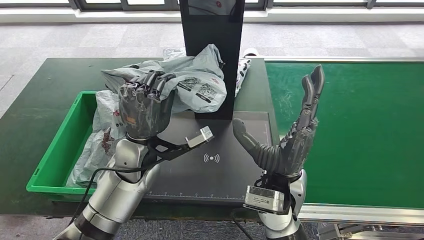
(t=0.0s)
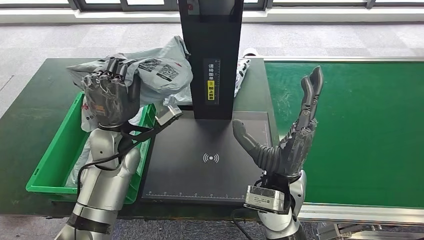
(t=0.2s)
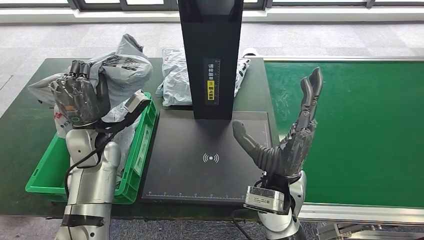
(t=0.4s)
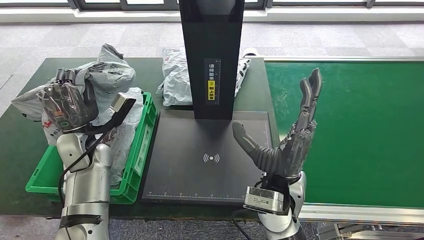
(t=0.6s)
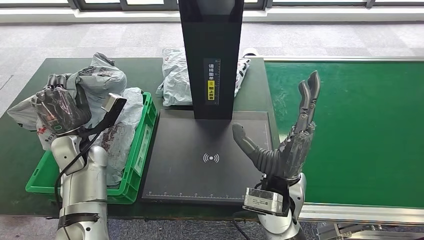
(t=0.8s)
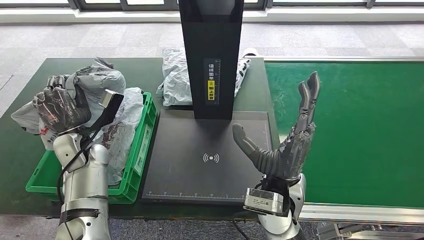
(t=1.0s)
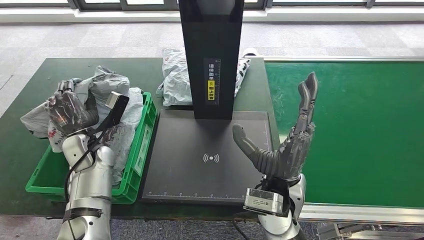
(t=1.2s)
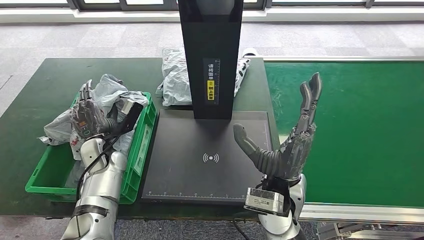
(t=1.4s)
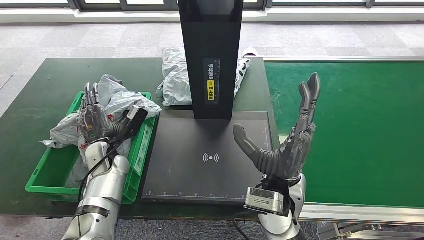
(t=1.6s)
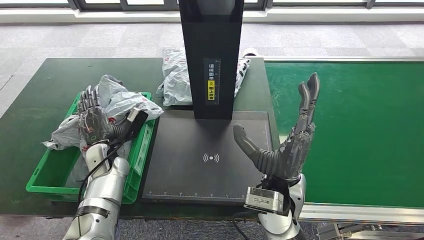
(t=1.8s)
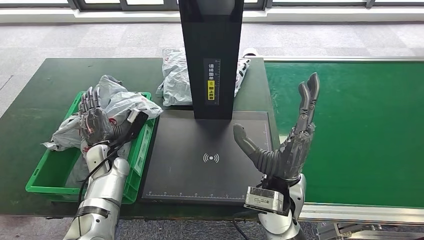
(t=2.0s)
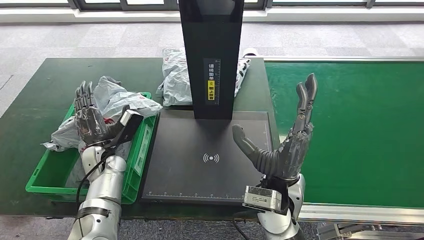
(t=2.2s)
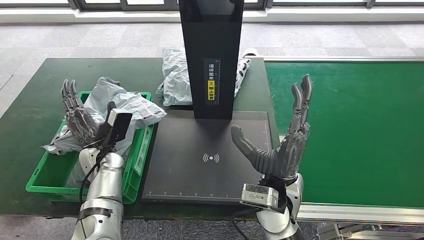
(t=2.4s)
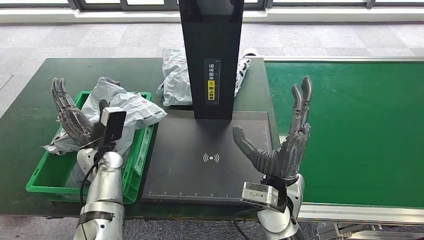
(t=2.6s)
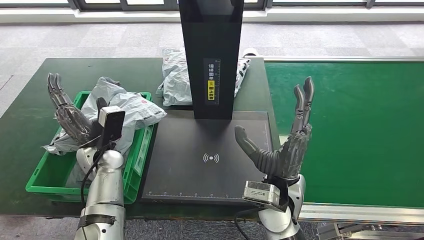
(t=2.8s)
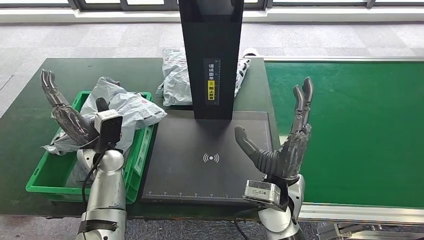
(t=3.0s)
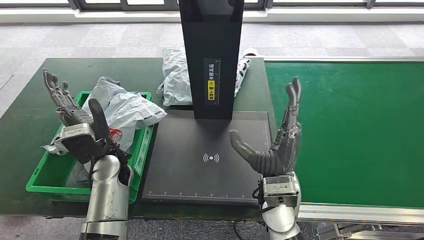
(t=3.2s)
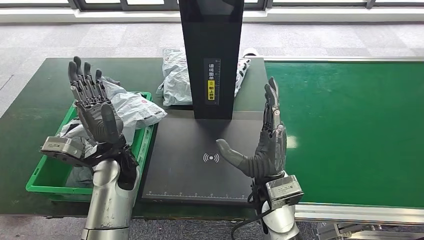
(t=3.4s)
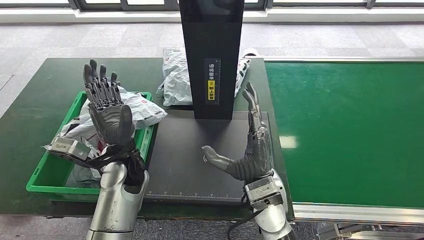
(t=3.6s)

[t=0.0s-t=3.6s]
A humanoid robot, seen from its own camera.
Step, t=0.2s to t=3.6s: Place the parcel into the delivery box.
t=0.0s to t=1.8s: The left hand goes some 20 cm downward and to the left.
t=1.8s to t=3.6s: The left hand moves to the right and upward, about 15 cm.
